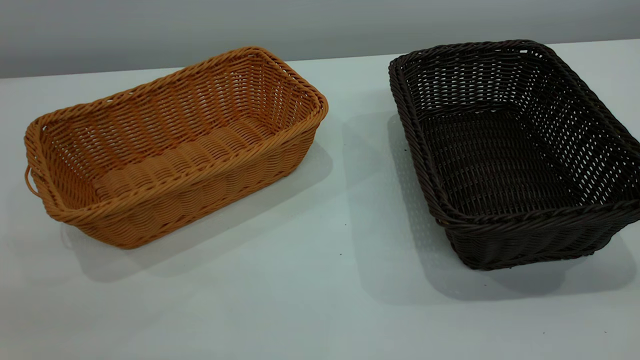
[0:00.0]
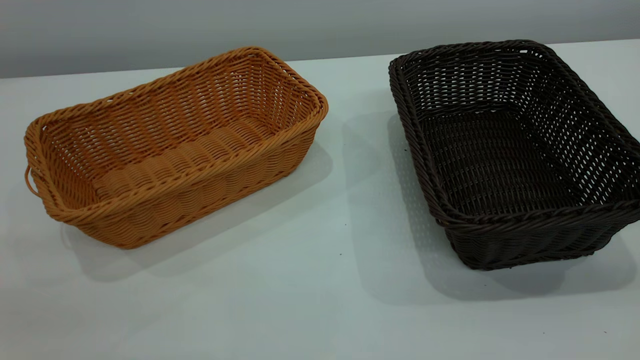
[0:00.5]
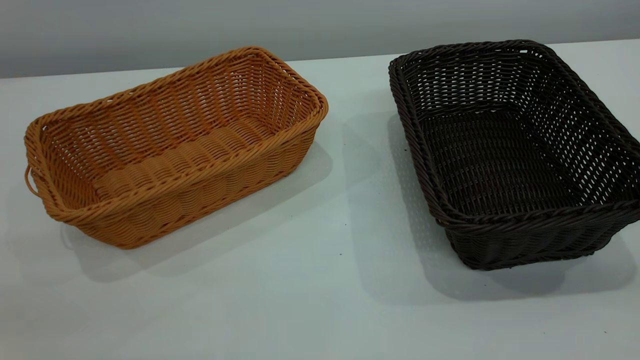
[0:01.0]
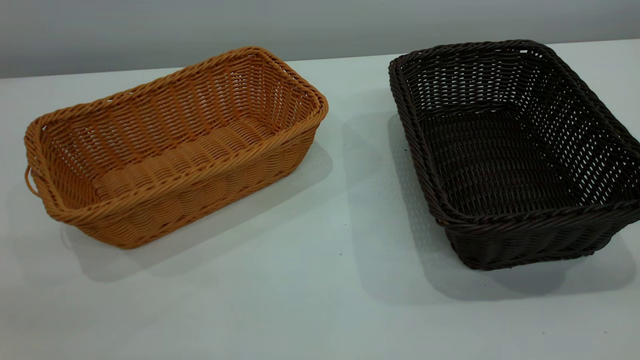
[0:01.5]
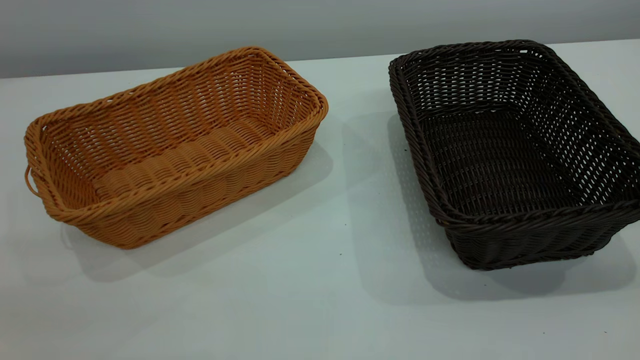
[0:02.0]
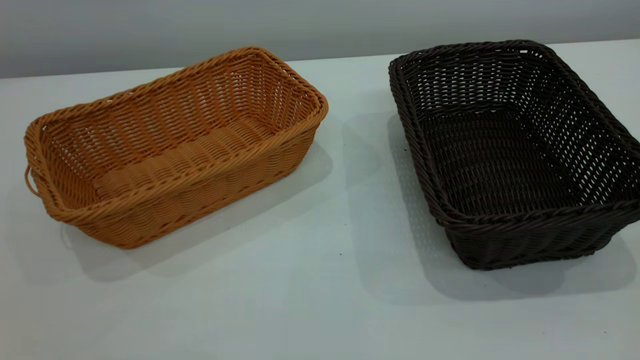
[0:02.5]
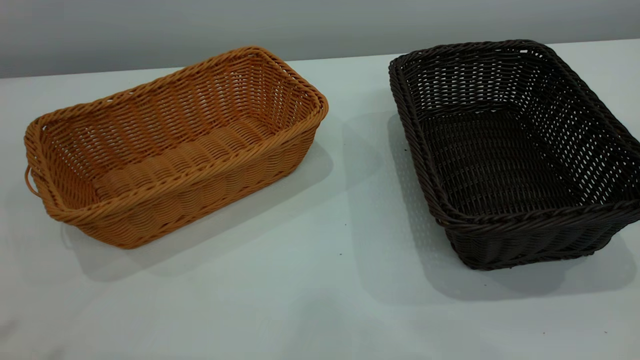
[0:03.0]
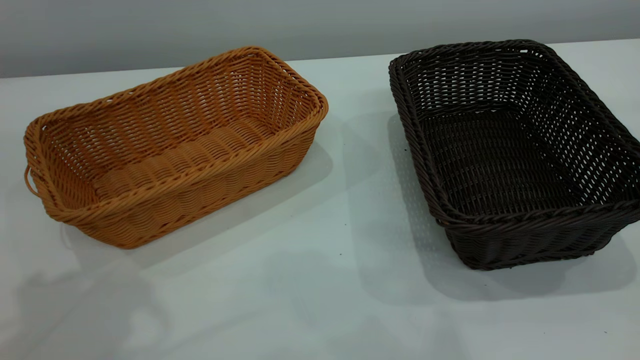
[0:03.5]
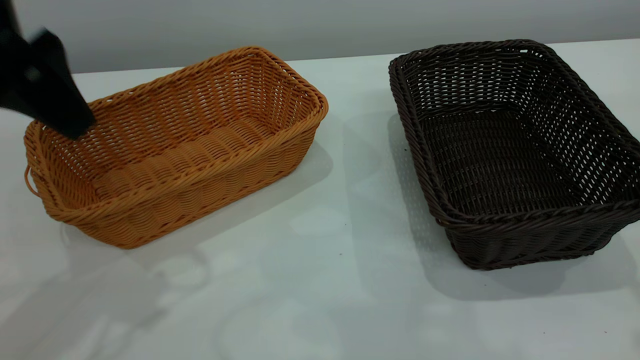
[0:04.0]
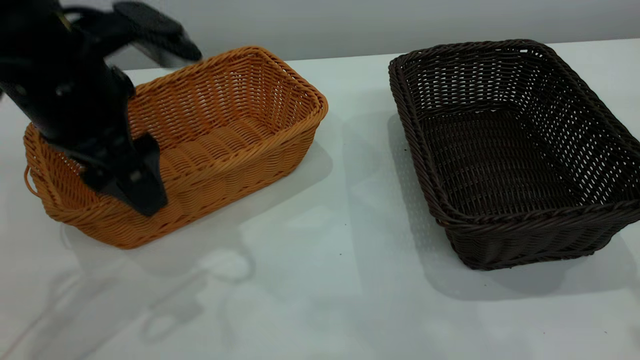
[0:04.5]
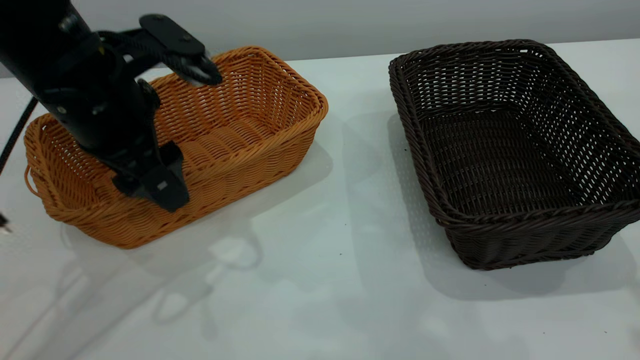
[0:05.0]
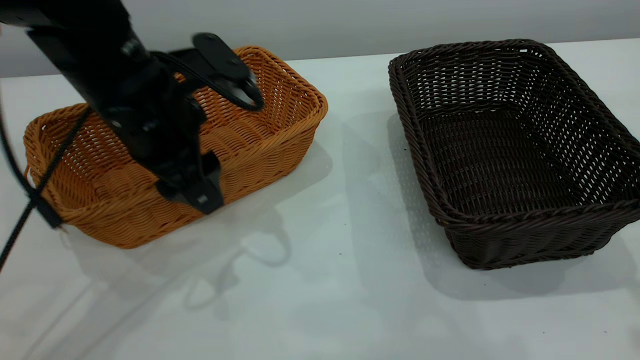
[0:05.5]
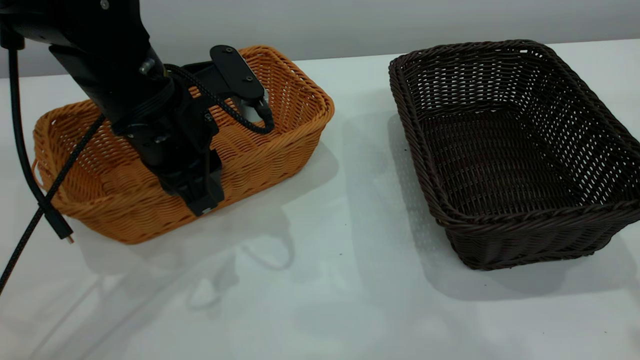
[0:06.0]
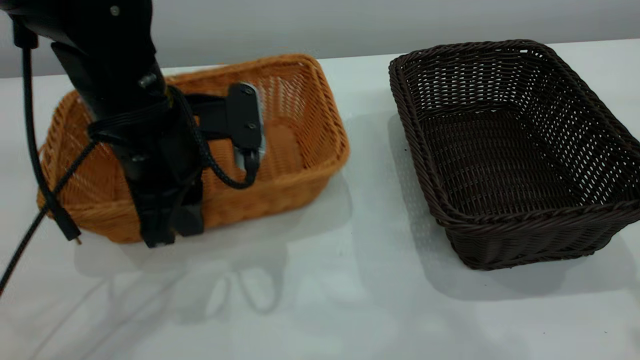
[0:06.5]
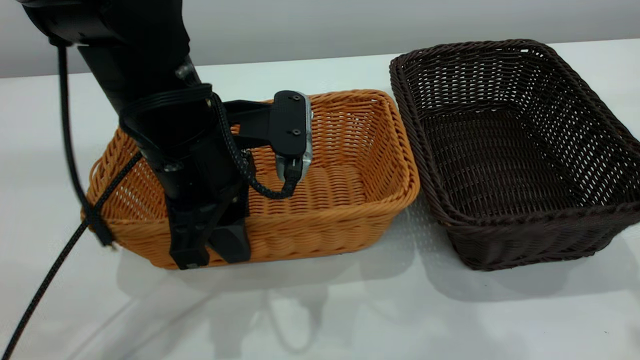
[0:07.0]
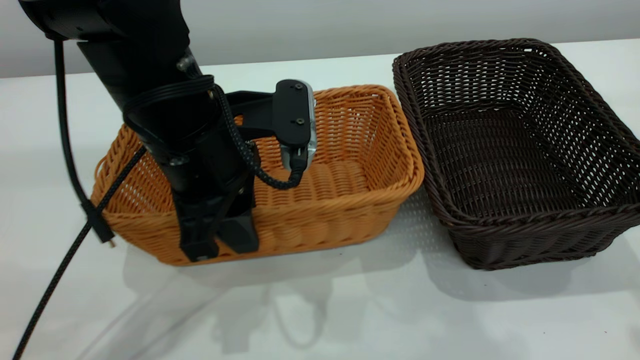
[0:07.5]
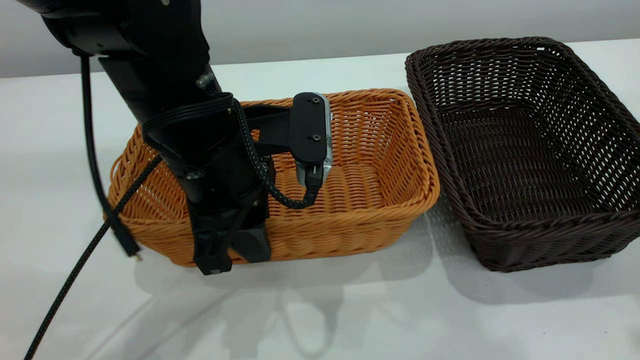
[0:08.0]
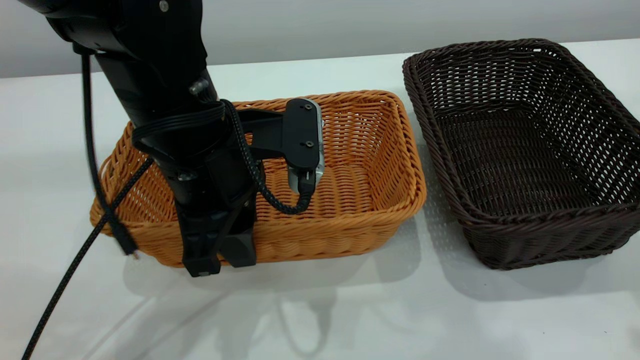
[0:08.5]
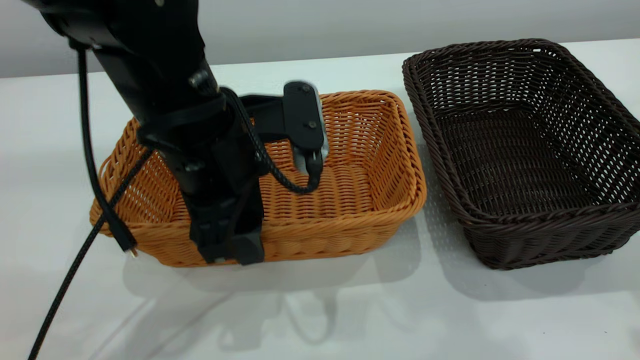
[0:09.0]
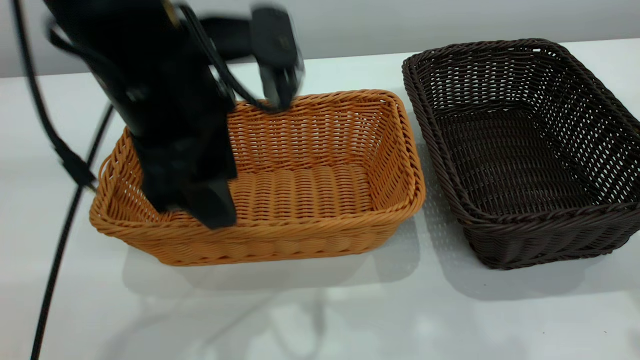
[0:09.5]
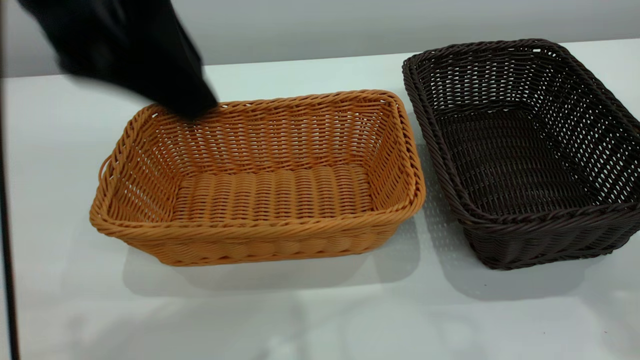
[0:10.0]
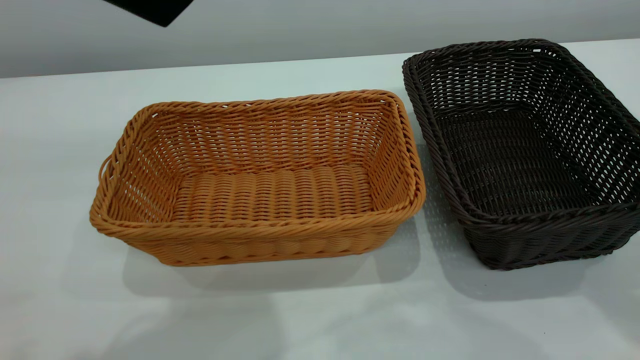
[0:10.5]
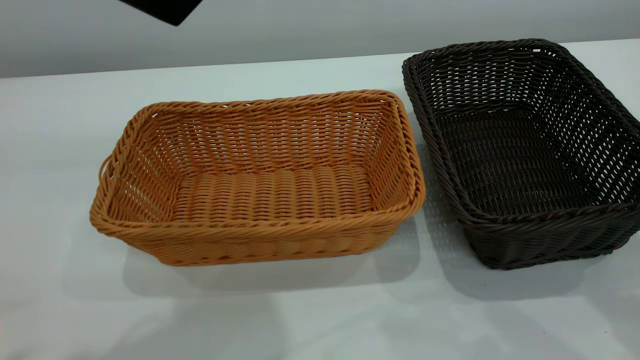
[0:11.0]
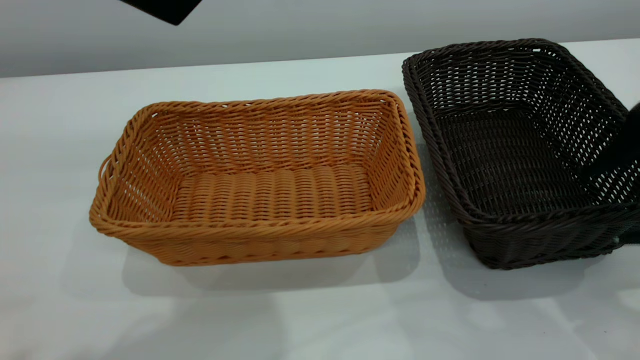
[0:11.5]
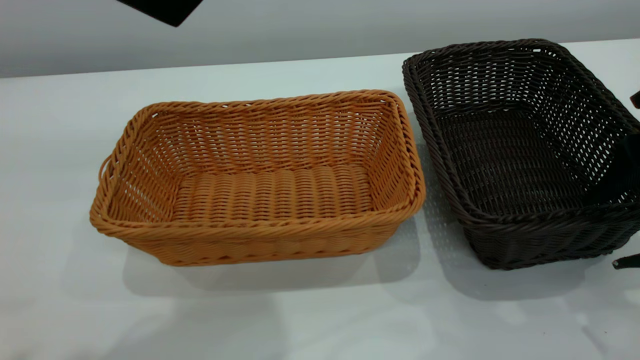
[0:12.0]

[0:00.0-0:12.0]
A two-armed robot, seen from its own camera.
Task of the whole recording: the left gripper grasp the brown basket and place it in the center of the table, the right gripper grasp the black basket and place it inside the brown one.
Step, 0:00.0 to 0:10.0: Place the light-colored basket in the center.
0:00.0 to 0:02.0: Neither gripper changes place.
0:02.0 to 0:04.0: The left gripper is displaced forward by roughly 25 cm, and opens.
0:04.0 to 0:06.0: The left gripper heads downward and to the right, covering some 15 cm, and closes its fingers.
0:06.0 to 0:08.0: The left gripper travels to the right by some 5 cm.
0:08.0 to 0:10.0: The left gripper heads upward, covering about 20 cm, and opens its fingers.
0:10.0 to 0:12.0: The right gripper travels downward by some 15 cm.

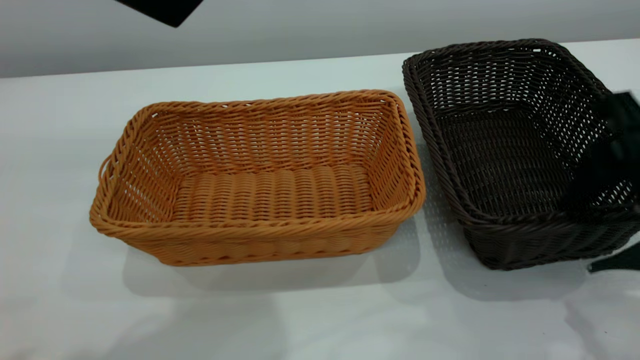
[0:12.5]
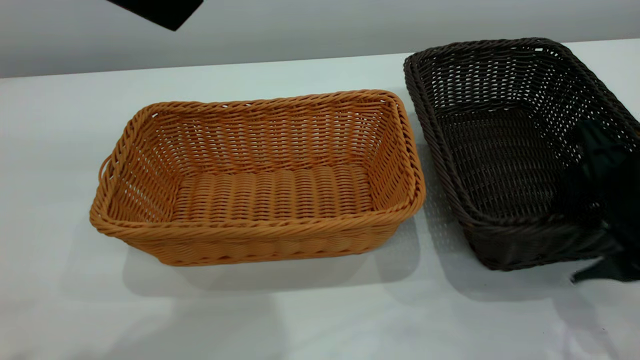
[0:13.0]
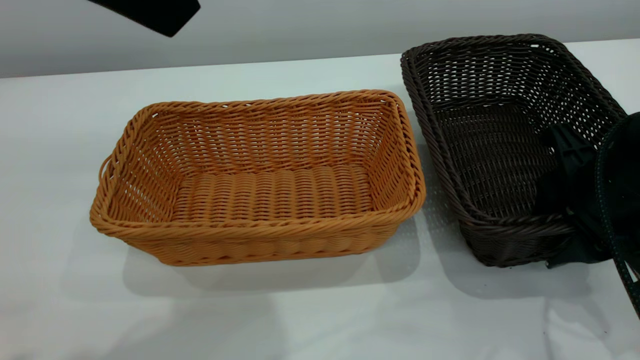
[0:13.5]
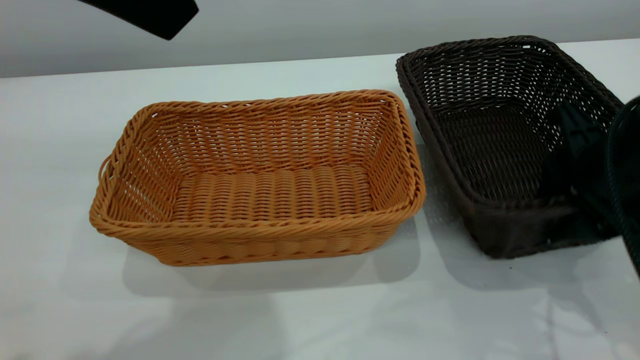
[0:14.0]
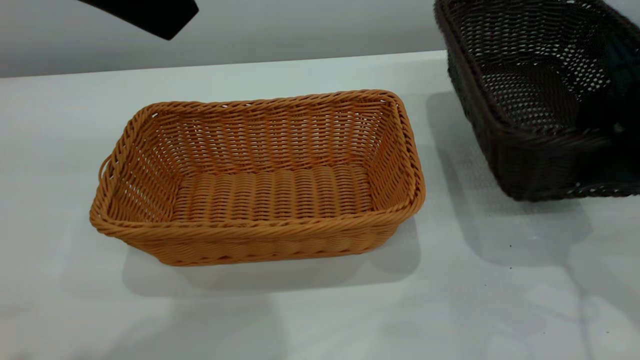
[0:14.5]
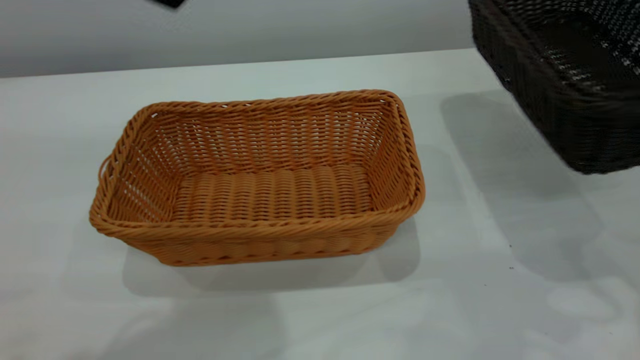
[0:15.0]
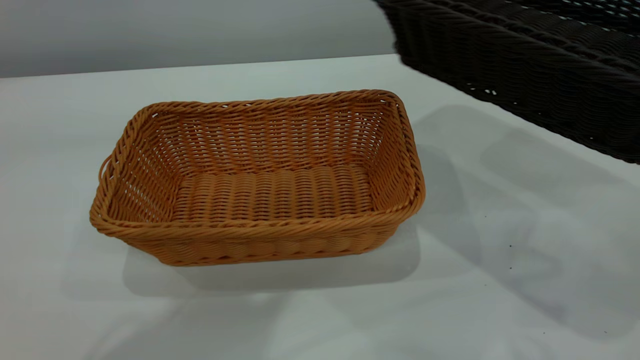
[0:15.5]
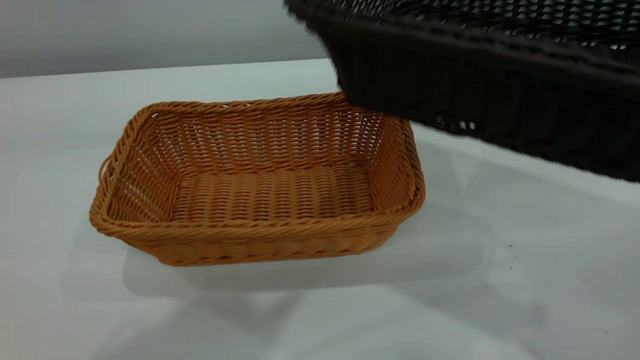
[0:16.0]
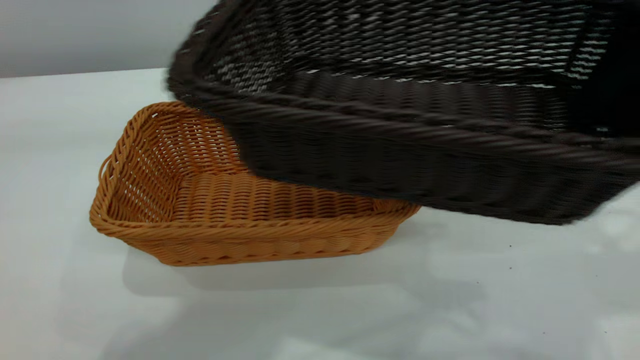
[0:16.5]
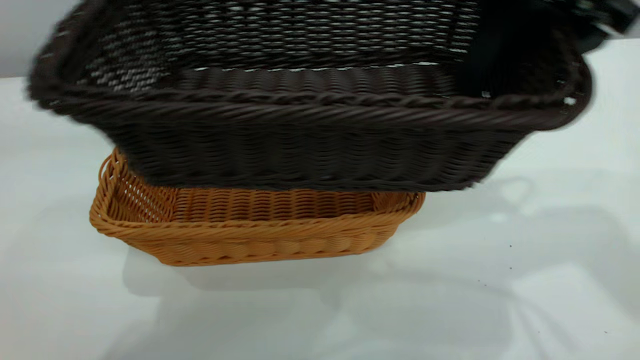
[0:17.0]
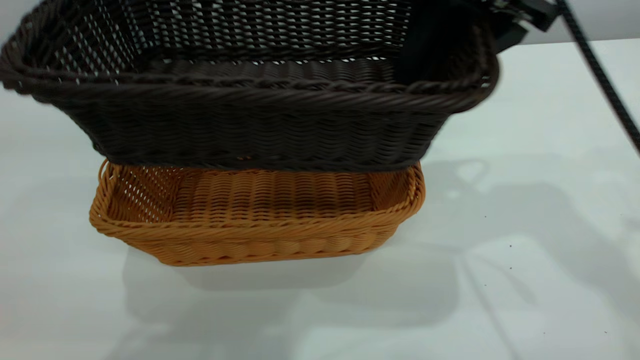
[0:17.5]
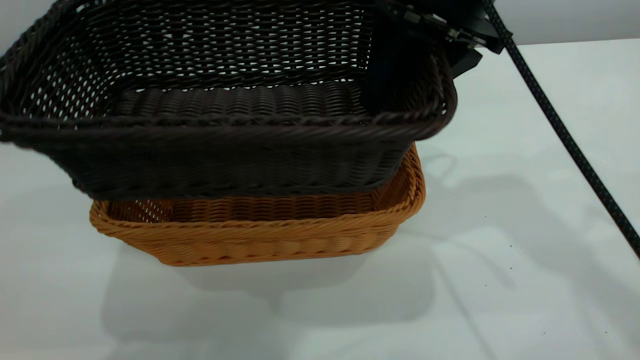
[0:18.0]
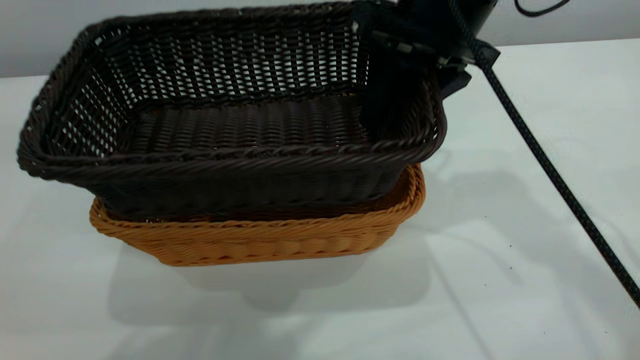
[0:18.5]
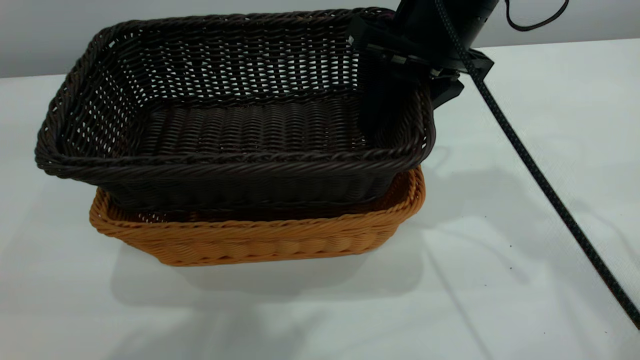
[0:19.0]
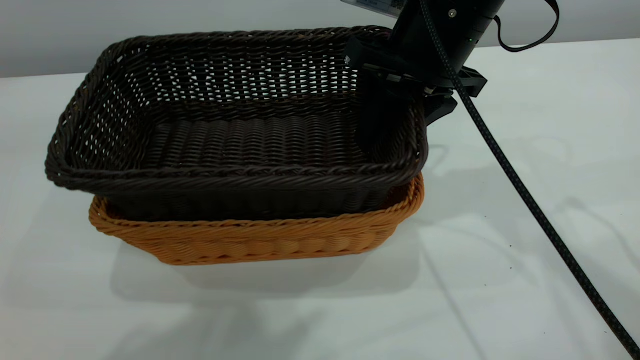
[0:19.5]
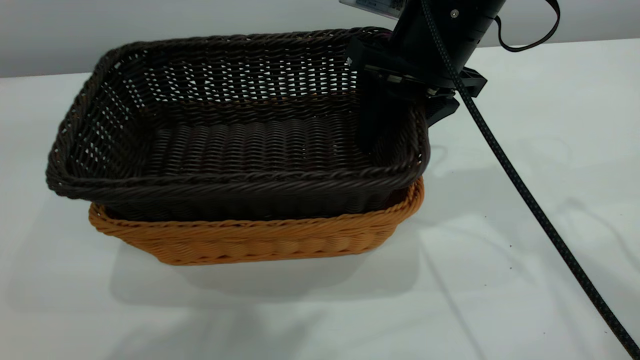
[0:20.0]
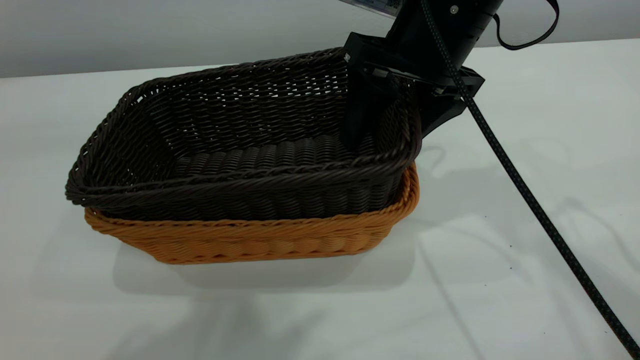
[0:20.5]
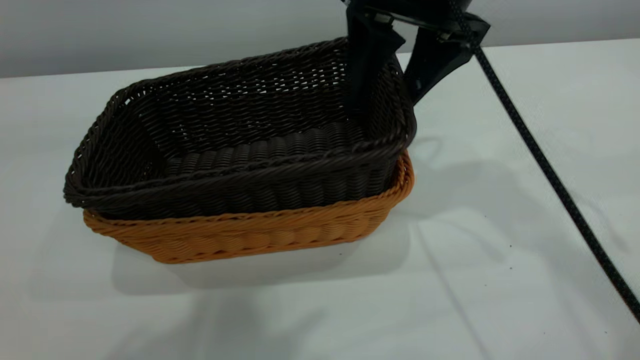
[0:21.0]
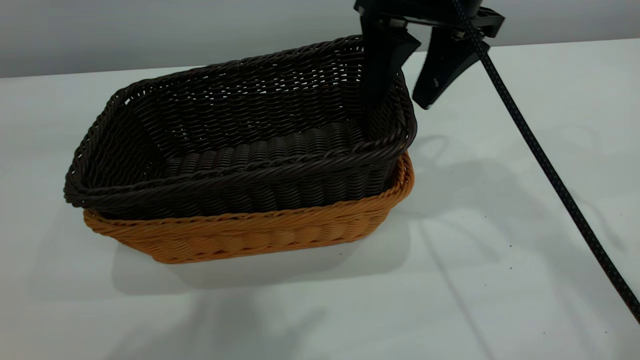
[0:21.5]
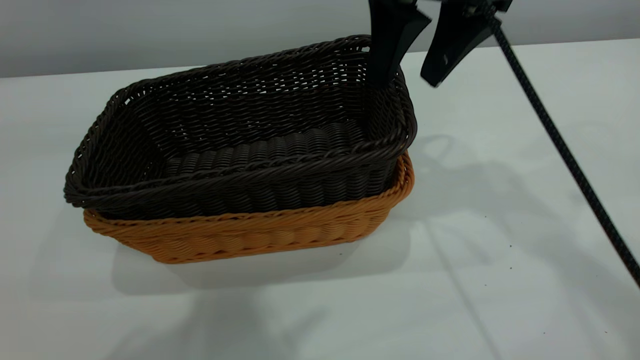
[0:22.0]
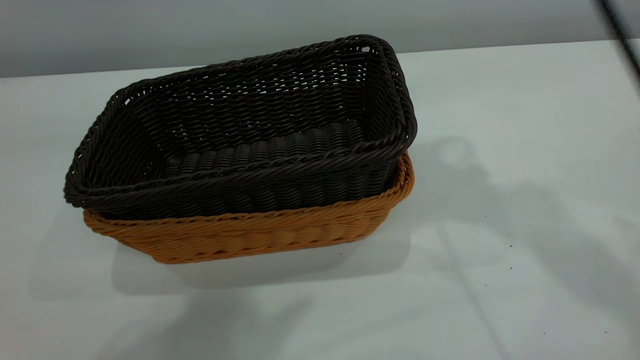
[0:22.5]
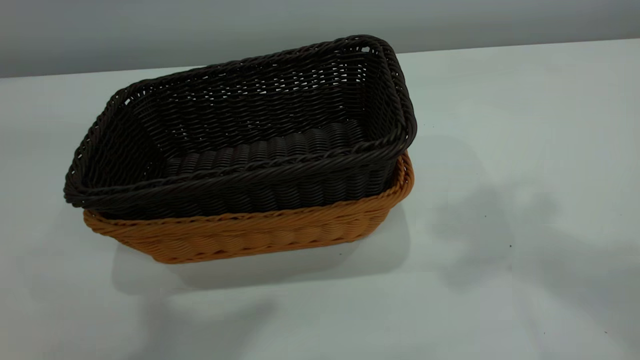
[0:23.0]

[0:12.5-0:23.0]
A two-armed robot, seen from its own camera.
Task of the whole recording: the left gripper grasp the brown basket and place it in the center of the table, the right gripper grasp the black basket and place it inside the brown one.
Step, 0:12.5 to 0:14.5: Pick up the light basket with the right gripper.
Step, 0:15.0 to 0:22.0: Place the dark basket on top of the light basket.
0:12.5 to 0:14.5: The right gripper ends up roughly 5 cm from where it was.
0:14.5 to 0:16.5: The two grippers go approximately 10 cm upward.
0:16.5 to 0:19.0: The right gripper moves to the left, forward and downward, some 15 cm.
0:19.0 to 0:21.0: The right gripper opens up.
0:21.0 to 0:23.0: The right gripper shifts some 25 cm upward and backward, and closes; the left gripper shifts by about 5 cm, and closes up.
